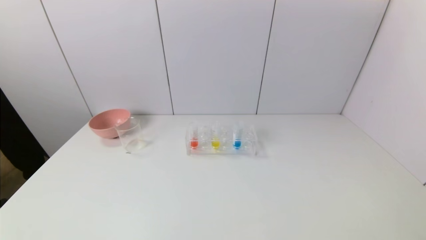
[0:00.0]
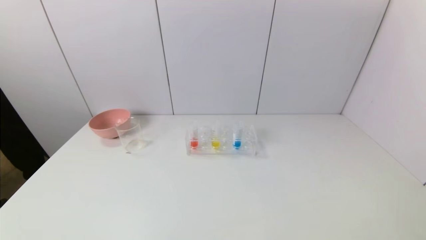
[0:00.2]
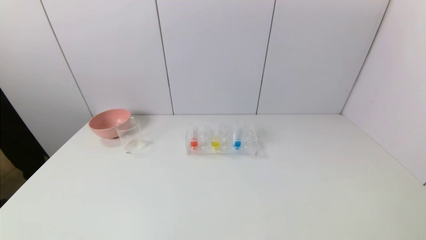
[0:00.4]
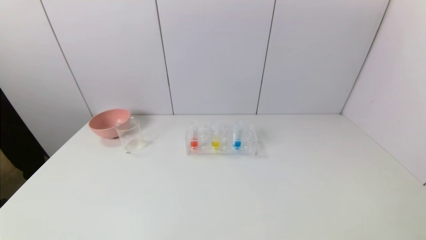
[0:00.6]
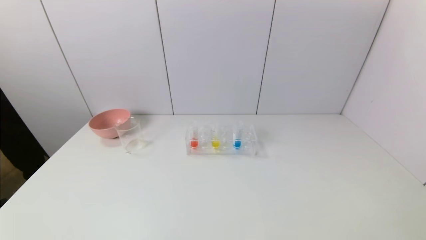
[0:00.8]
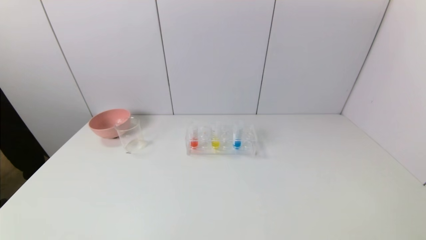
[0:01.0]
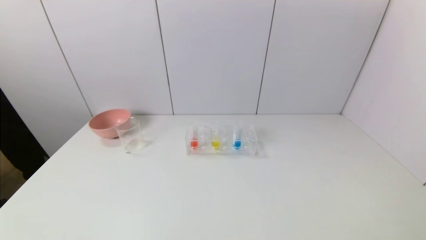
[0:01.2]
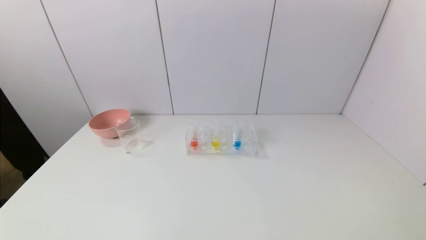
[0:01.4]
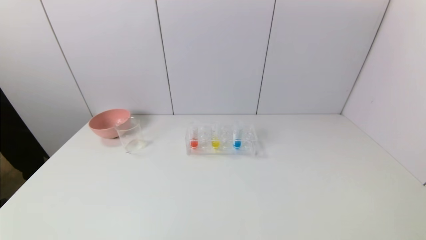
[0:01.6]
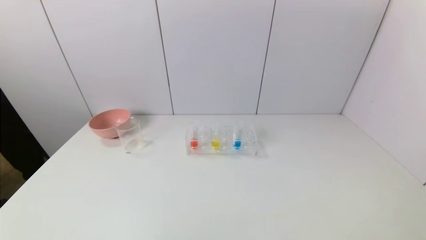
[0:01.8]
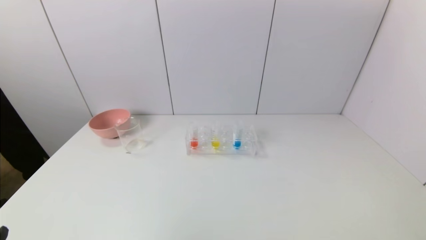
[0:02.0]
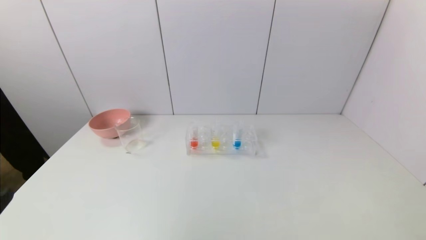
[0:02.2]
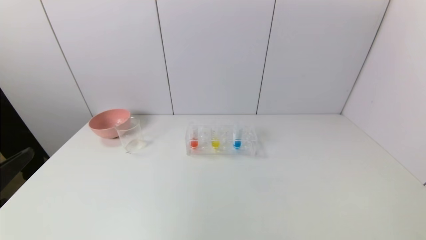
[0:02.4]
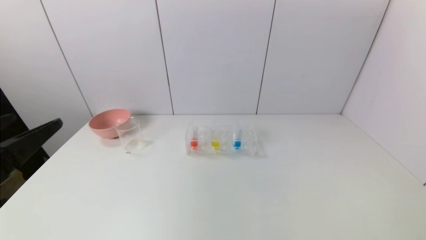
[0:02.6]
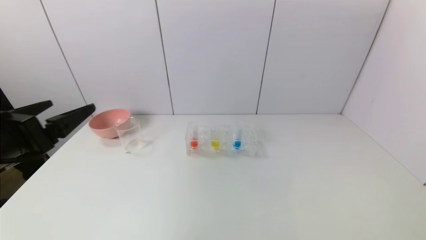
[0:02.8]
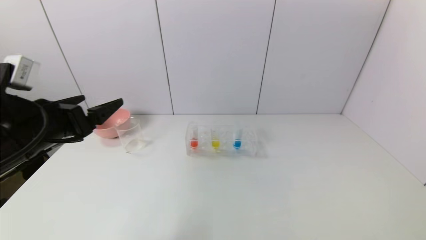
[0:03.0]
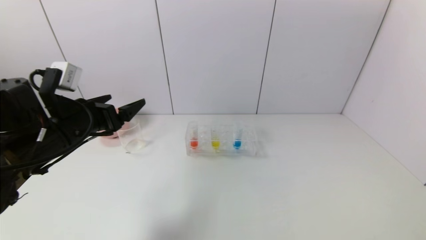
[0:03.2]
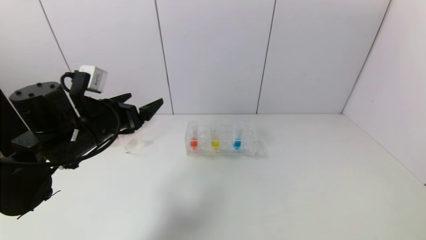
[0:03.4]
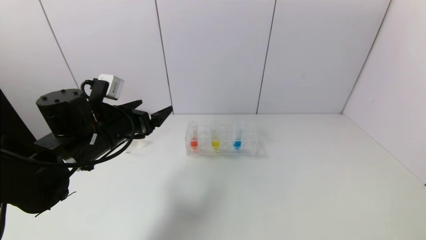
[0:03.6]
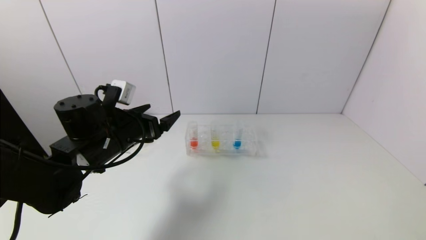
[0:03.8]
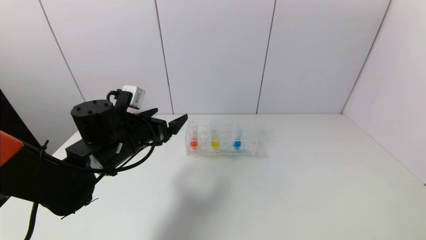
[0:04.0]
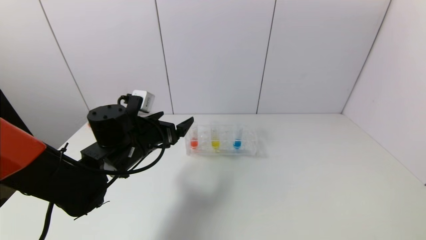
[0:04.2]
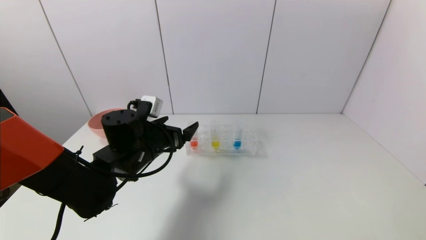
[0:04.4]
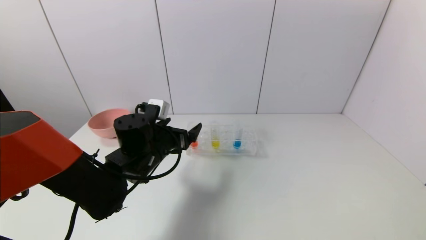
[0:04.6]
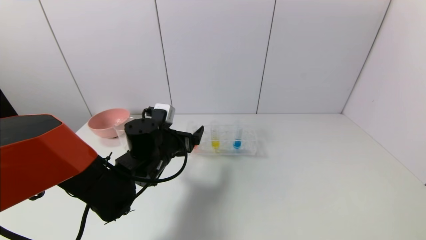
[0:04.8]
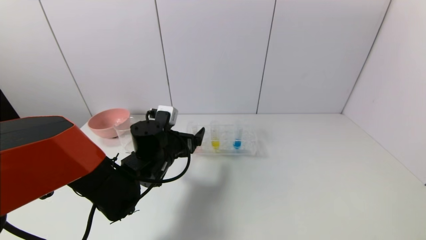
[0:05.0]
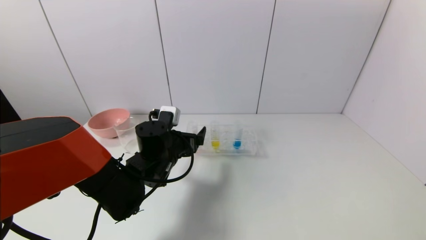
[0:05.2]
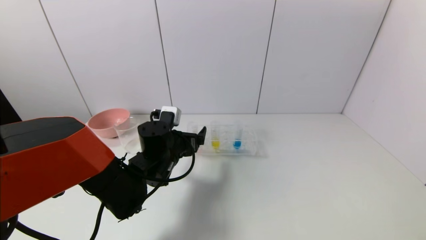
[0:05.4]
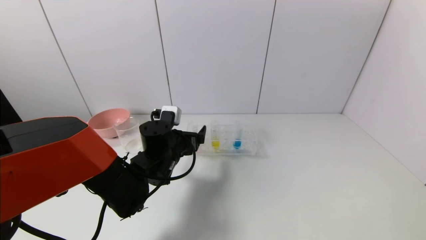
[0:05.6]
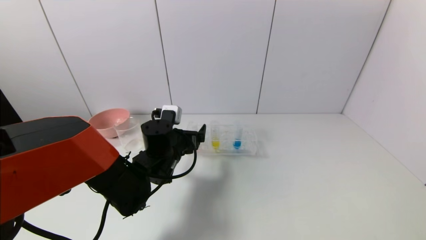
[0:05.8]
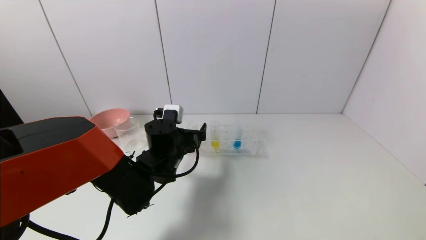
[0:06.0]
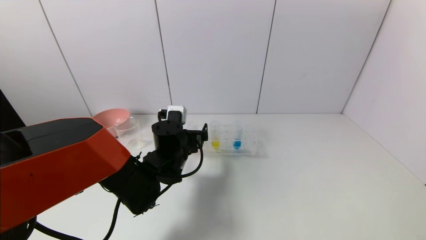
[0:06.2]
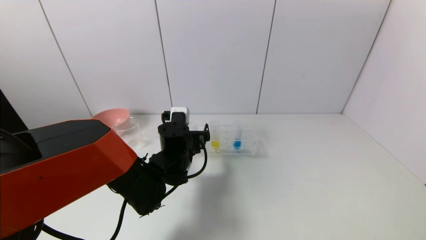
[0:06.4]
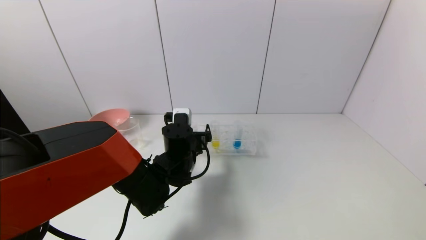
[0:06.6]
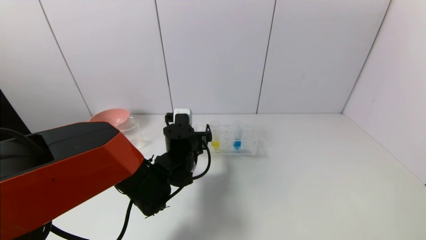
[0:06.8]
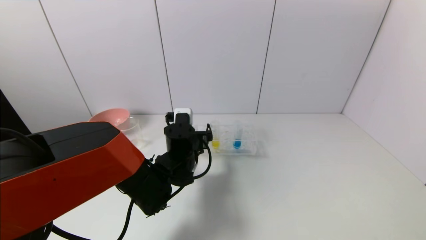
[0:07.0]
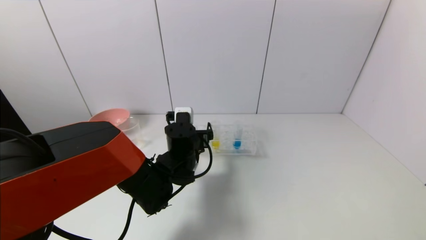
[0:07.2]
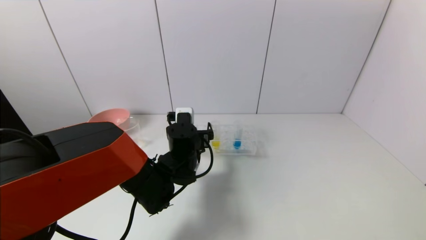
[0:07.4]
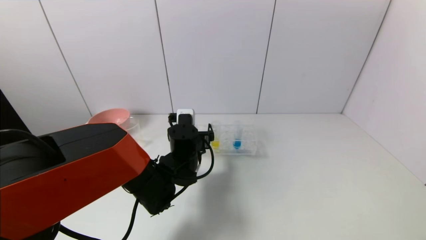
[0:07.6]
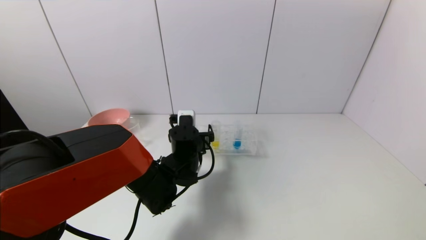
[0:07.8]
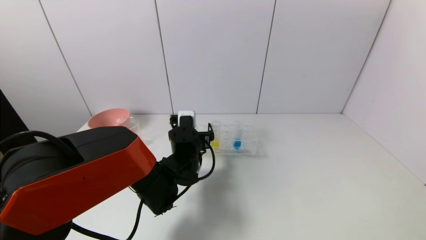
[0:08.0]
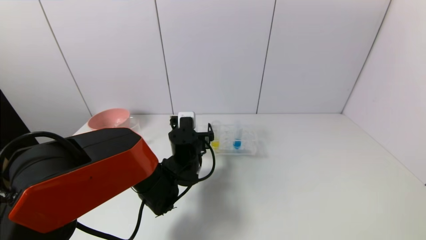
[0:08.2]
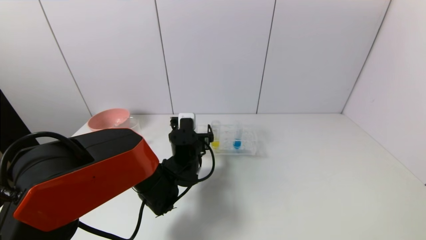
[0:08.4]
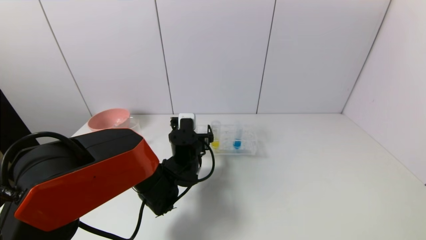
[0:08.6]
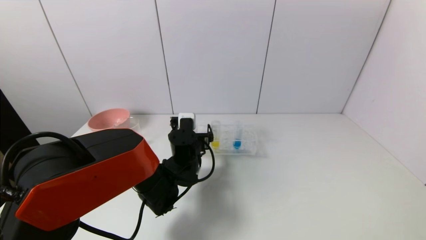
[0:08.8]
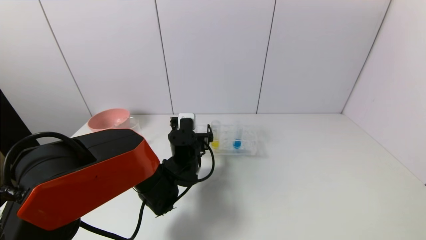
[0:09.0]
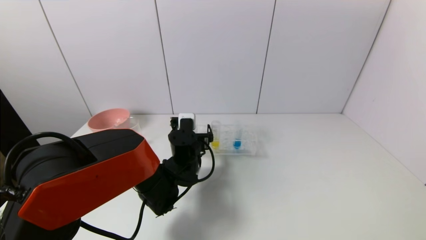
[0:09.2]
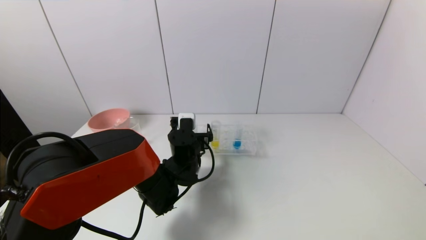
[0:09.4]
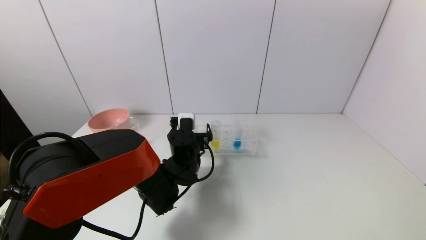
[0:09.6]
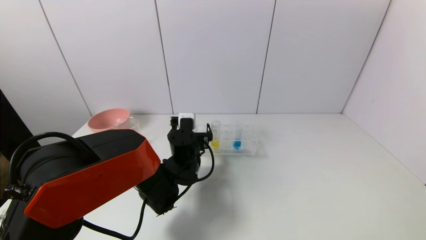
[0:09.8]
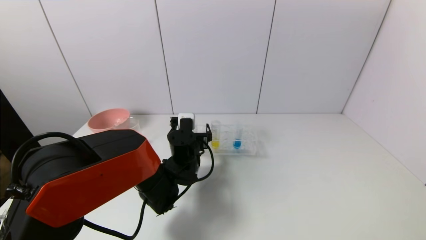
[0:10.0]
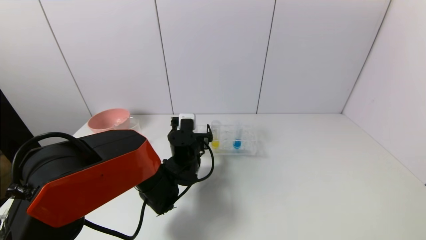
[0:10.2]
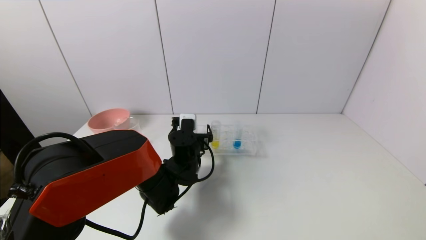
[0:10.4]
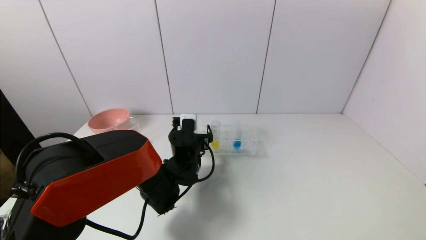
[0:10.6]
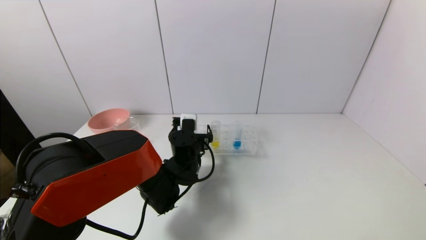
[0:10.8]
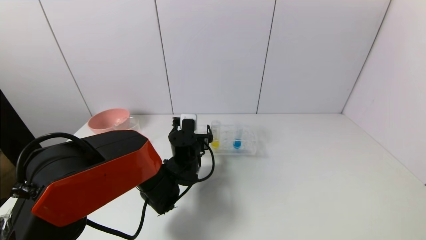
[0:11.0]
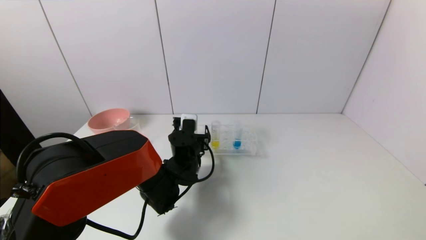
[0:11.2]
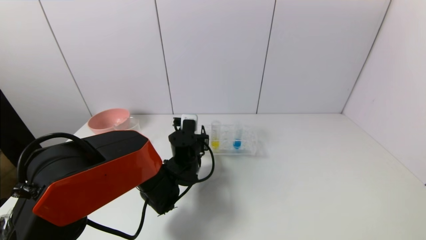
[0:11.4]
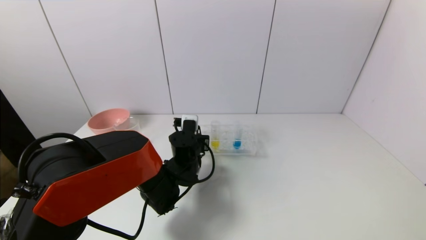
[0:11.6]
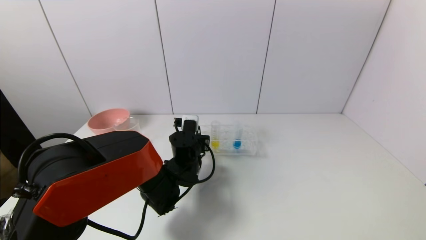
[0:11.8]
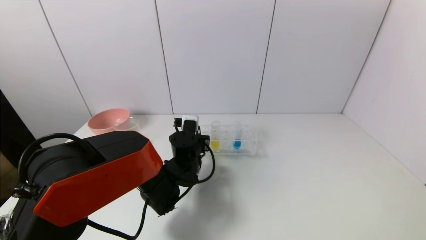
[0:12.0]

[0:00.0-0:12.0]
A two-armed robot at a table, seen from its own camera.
Task of the whole recording: pick up the test tube with yellow pigment and the test tube with red pigment by grippers and pour them into the beaker.
Step, 0:00.0 to 0:12.0: Grasp the red reagent with the left gripper.
0:01.6 to 0:03.0: The left gripper heads forward and upward, covering approximately 25 cm.
0:03.0 to 0:04.4: The left gripper moves to the right, downward and forward, approximately 20 cm.
0:04.4 to 0:06.0: The left gripper heads to the right, covering roughly 5 cm.
0:06.0 to 0:09.0: The grippers make only small movements.
0:09.0 to 0:10.4: Neither gripper changes place.
0:10.4 to 0:12.0: The left gripper closes its fingers.

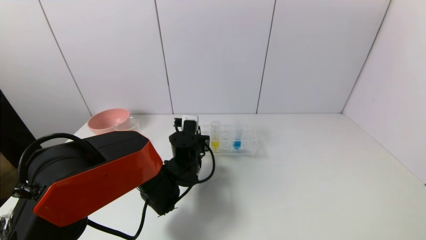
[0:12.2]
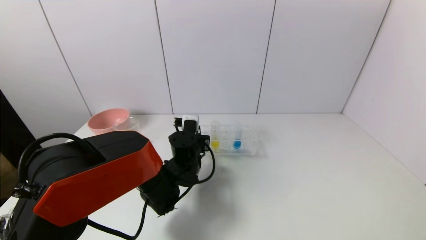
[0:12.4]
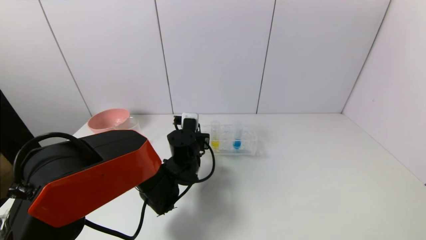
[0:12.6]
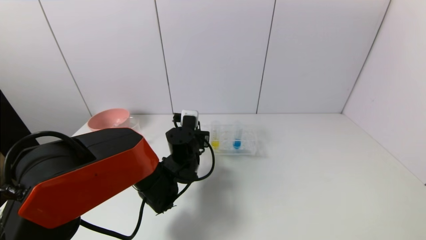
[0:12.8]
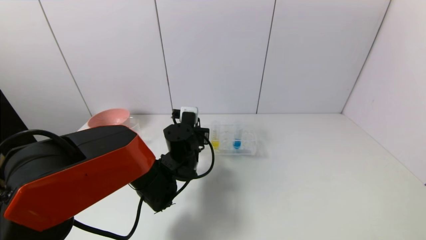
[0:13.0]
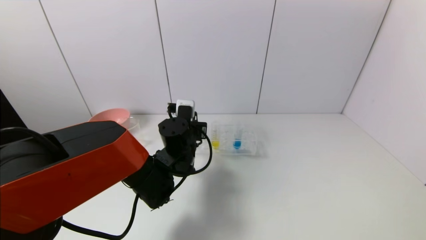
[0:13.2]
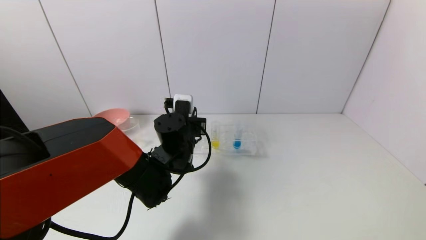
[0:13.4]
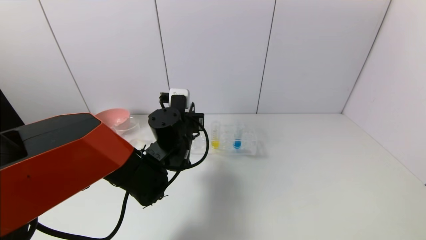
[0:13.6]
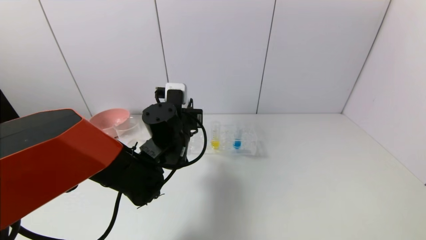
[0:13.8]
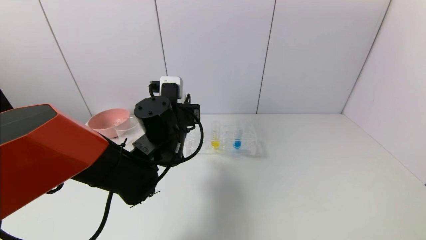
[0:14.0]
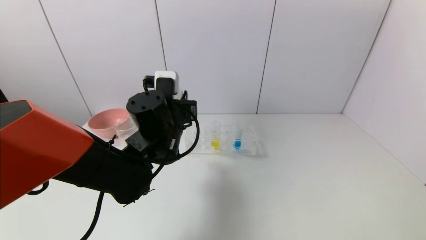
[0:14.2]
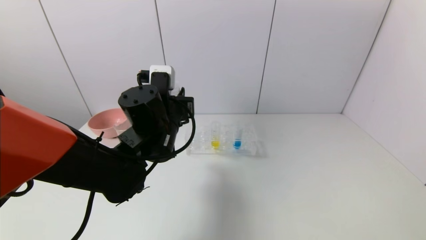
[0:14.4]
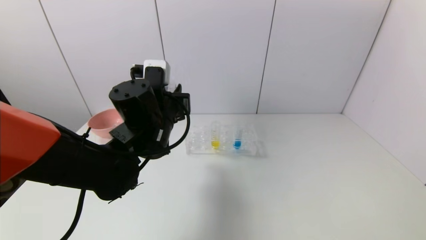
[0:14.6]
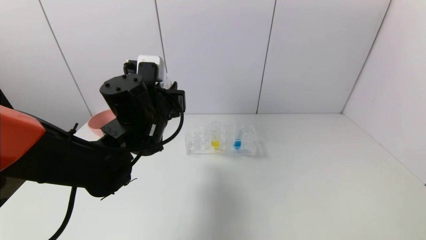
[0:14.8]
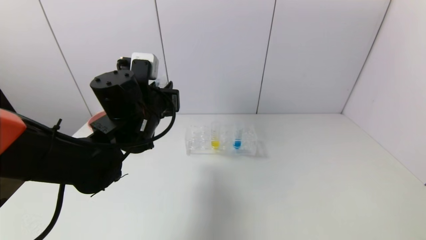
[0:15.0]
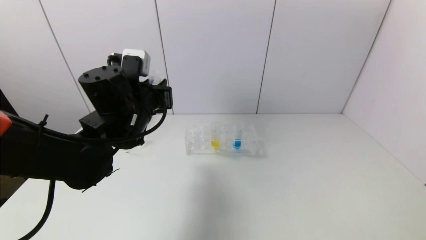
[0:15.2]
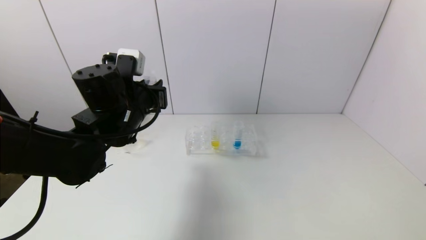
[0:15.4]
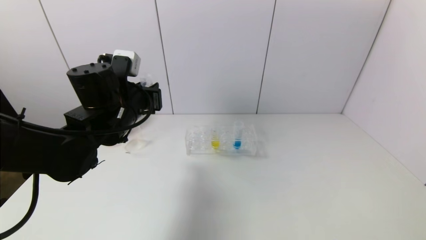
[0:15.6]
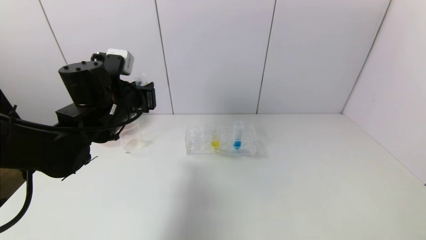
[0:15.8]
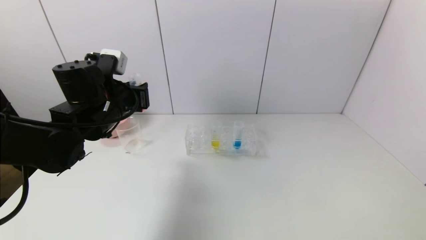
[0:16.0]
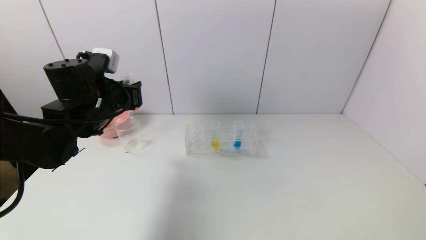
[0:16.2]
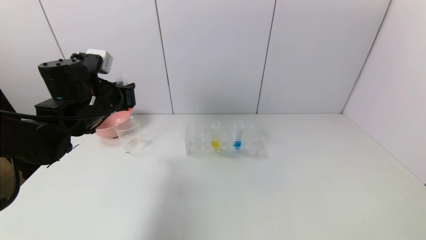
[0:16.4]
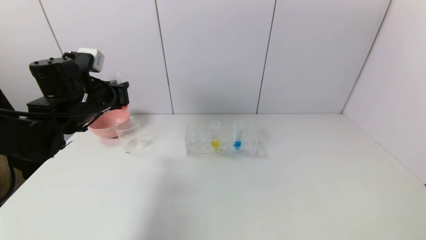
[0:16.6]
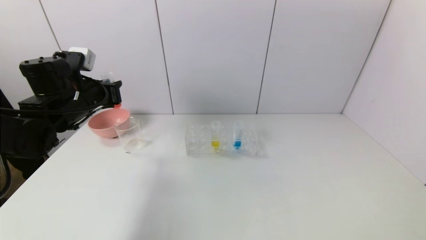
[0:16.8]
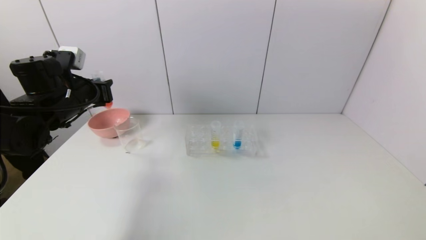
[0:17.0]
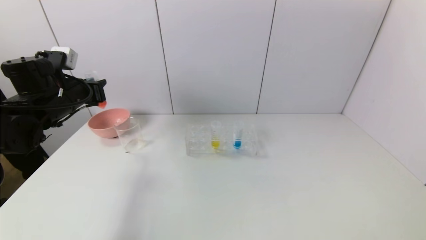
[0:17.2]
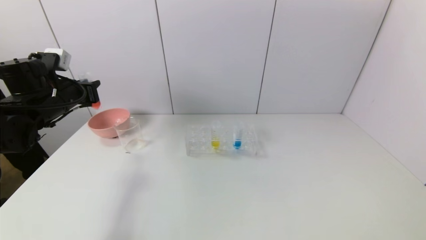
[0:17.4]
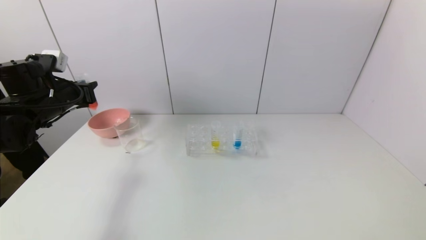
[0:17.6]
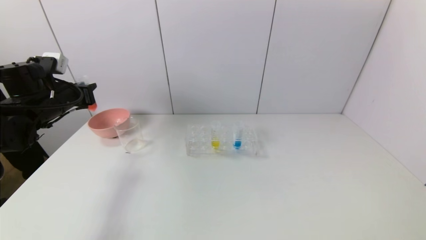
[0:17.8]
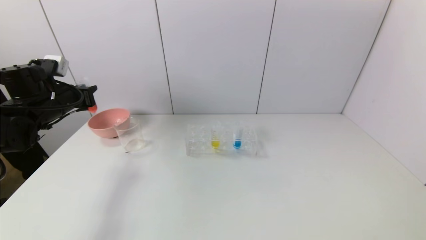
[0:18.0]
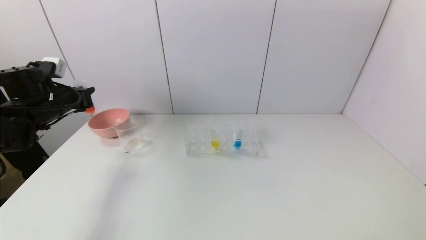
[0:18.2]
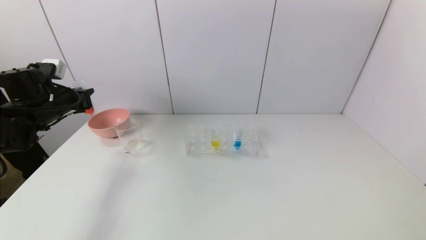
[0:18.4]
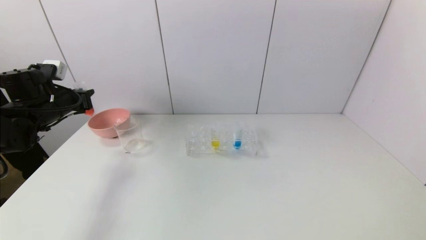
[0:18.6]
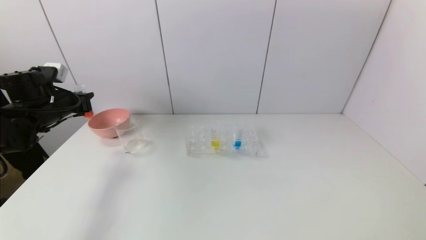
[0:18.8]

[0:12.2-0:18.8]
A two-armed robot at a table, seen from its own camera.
Task of the whole recording: pick up the test tube with yellow pigment and the test tube with red pigment by grippers and pour them into the beaker.
0:12.2 to 0:13.8: The left gripper is displaced upward by about 10 cm.
0:13.8 to 0:15.4: The left gripper shifts approximately 10 cm to the left and upward.
0:15.4 to 0:17.2: The left gripper is displaced to the left by approximately 15 cm.
0:17.2 to 0:18.8: The left gripper heads to the left, covering approximately 5 cm.
